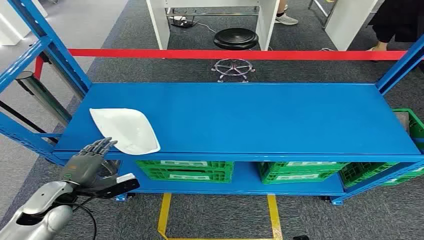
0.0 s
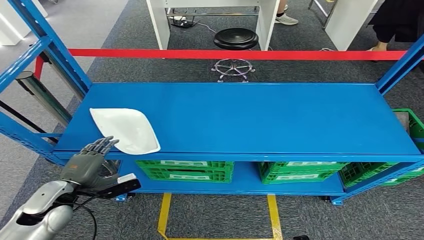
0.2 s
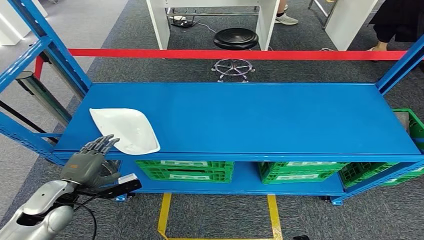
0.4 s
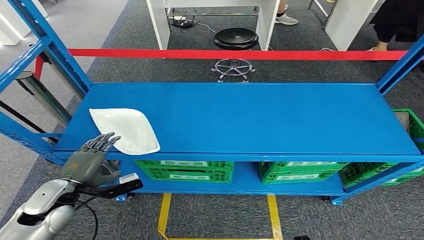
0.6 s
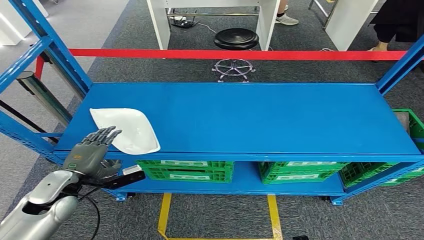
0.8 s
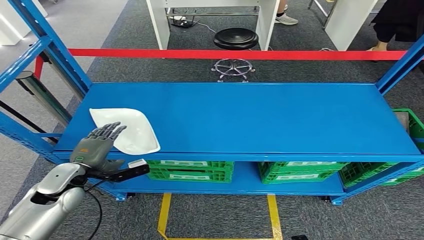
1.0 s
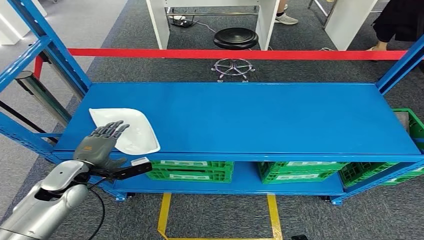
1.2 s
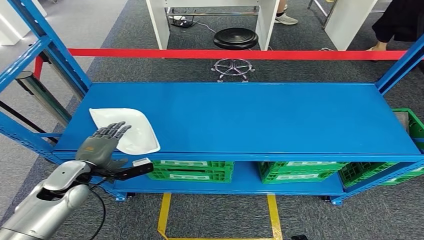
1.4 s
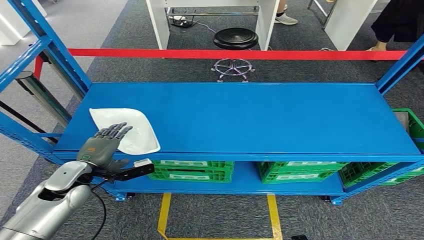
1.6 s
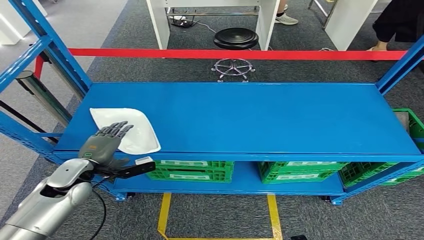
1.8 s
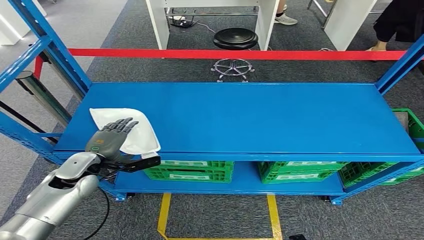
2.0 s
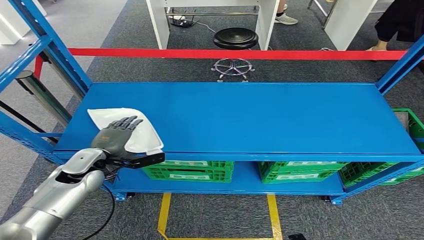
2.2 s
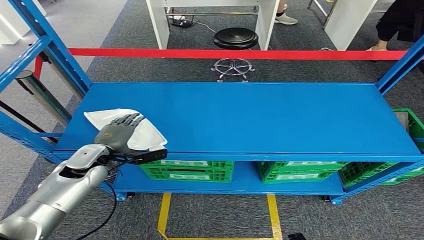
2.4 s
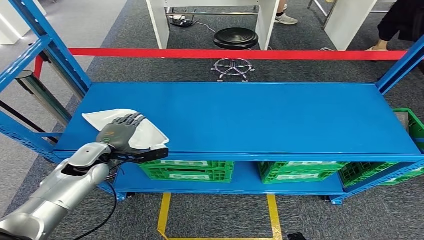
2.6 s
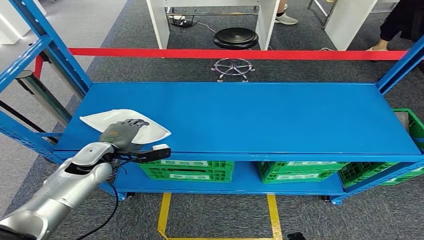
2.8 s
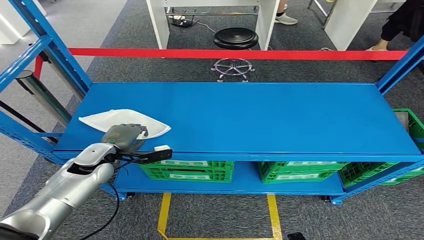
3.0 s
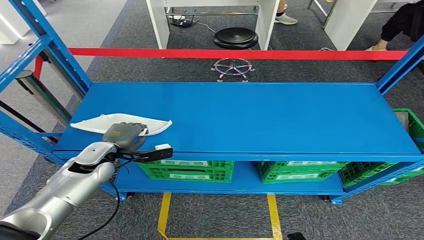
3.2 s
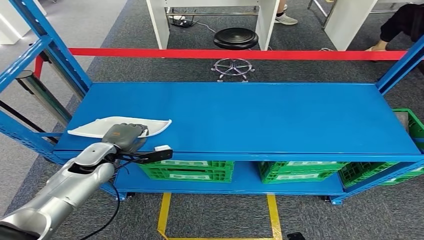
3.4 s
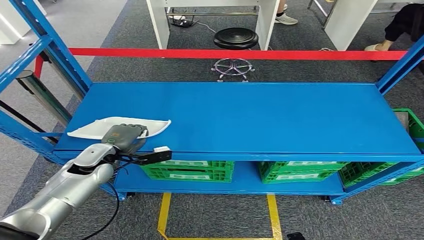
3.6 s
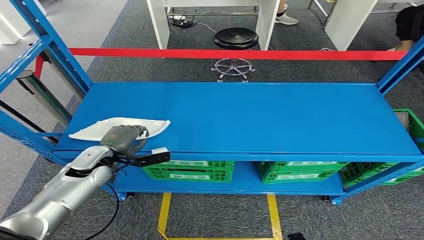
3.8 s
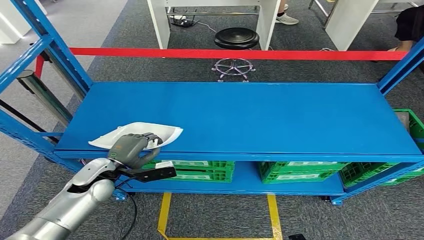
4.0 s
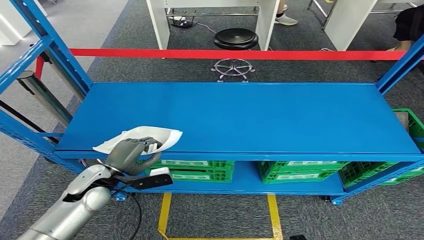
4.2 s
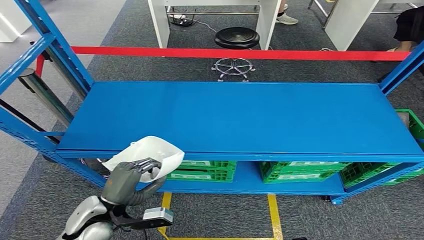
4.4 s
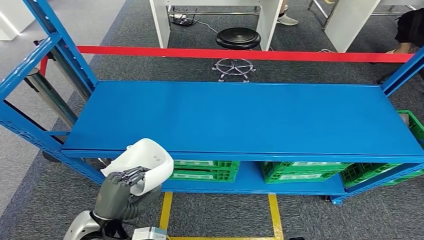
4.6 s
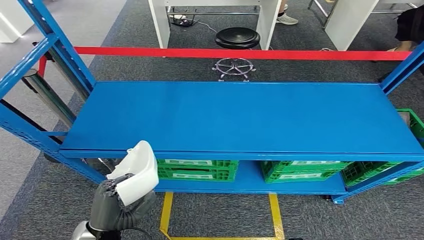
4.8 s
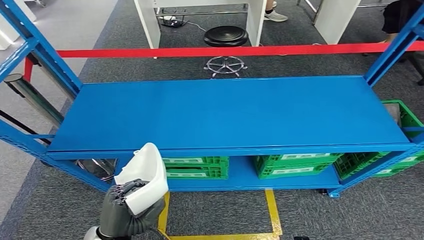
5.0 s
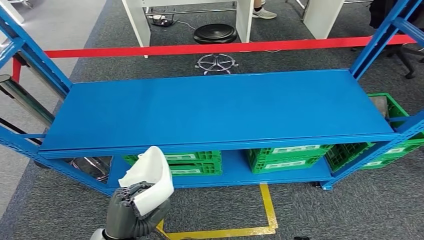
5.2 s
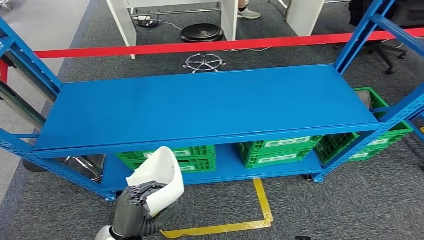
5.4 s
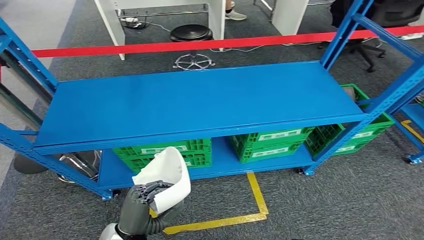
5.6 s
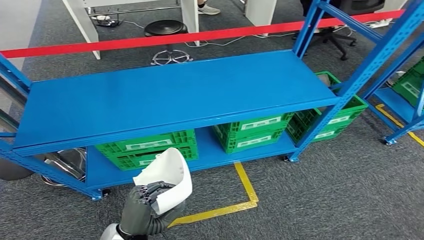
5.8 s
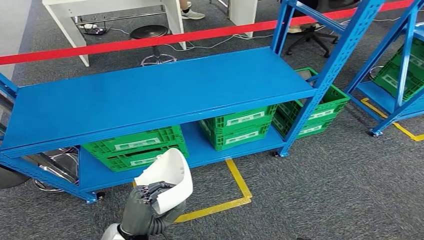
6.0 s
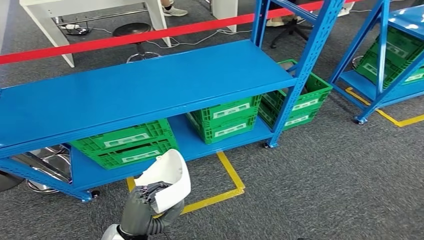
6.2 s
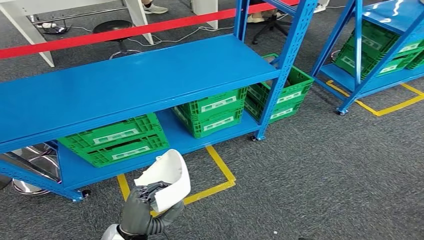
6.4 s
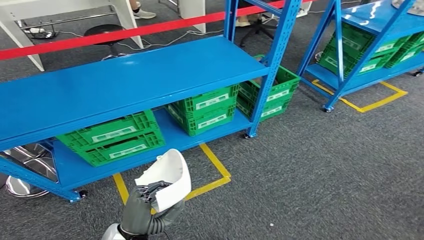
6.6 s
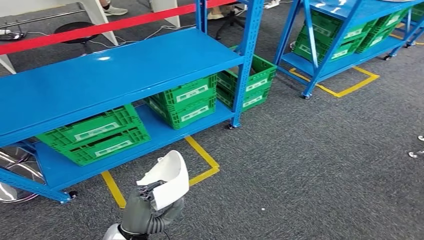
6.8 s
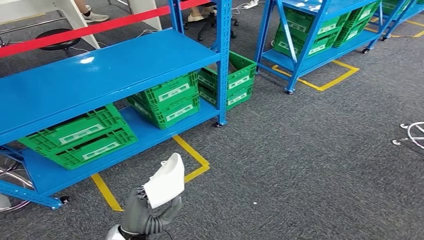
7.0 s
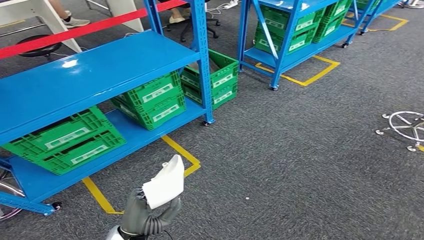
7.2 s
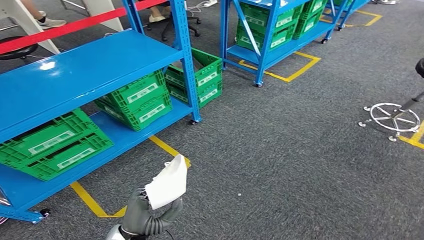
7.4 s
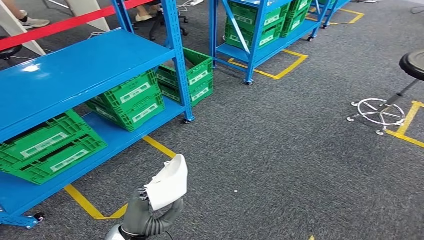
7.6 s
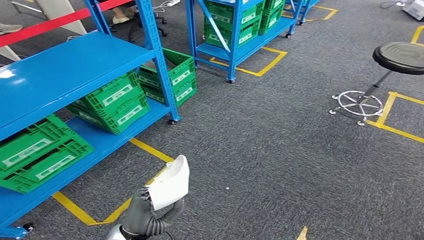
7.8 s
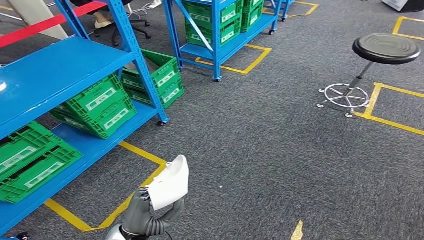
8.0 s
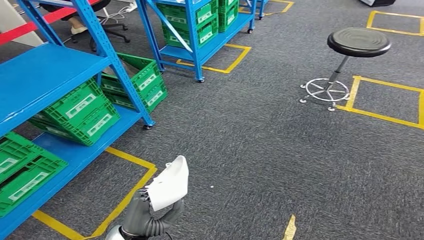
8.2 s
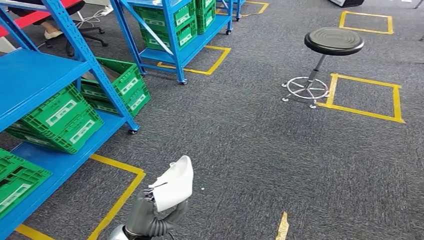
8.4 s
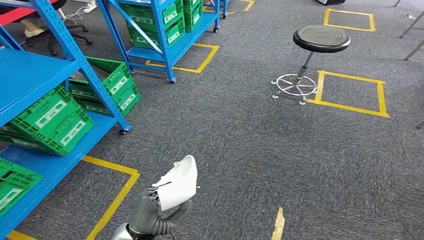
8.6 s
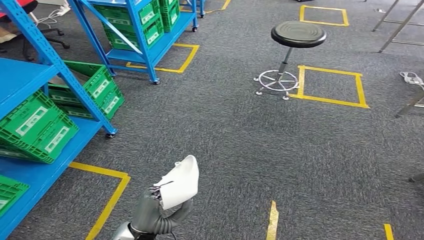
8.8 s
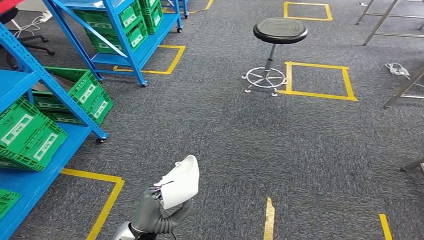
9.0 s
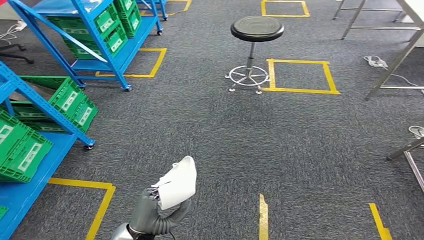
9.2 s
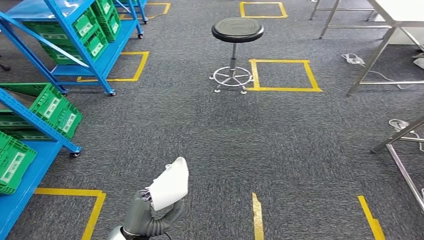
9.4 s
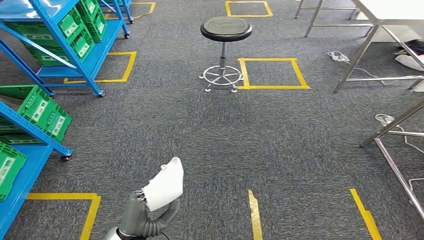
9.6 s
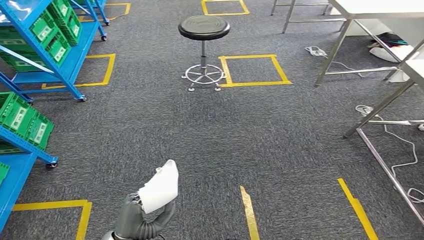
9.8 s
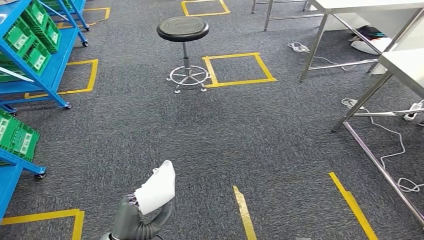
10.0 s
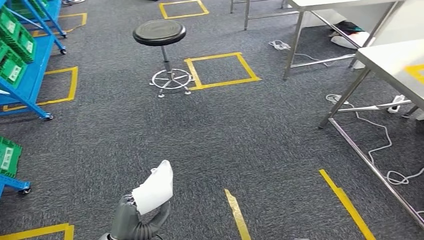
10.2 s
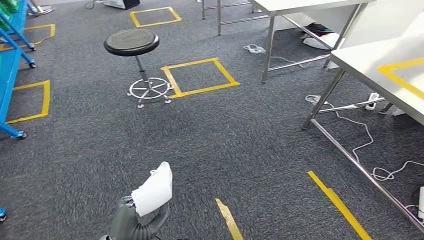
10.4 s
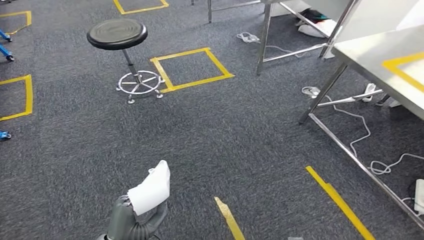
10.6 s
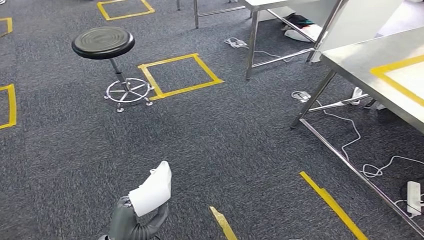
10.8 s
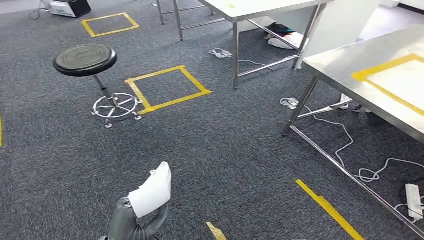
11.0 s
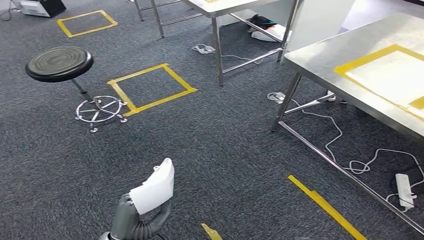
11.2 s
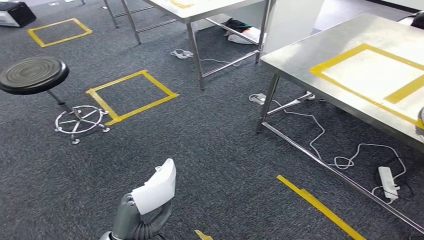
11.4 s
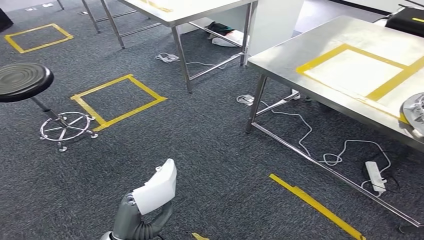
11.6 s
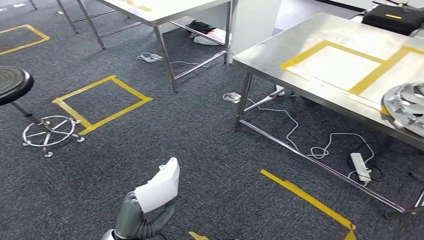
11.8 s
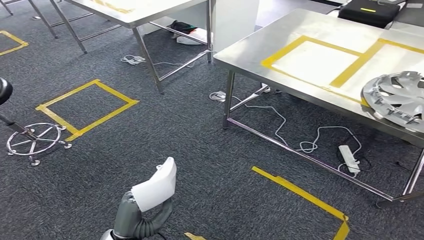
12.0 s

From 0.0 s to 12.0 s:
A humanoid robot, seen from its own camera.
Step, from 0.0 s to 4.8 s: Take small components from the rack.
From 1.6 s to 3.0 s: The left hand shifts approximately 5 cm forward.
From 3.0 s to 4.4 s: The left hand travels backward by some 15 cm.

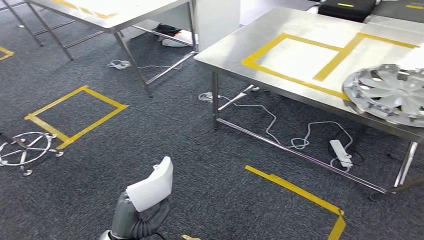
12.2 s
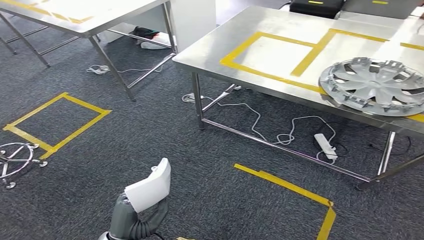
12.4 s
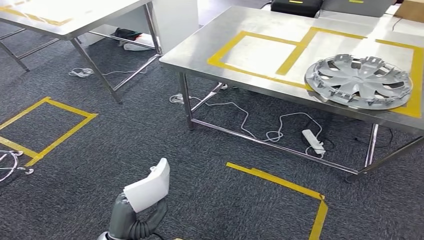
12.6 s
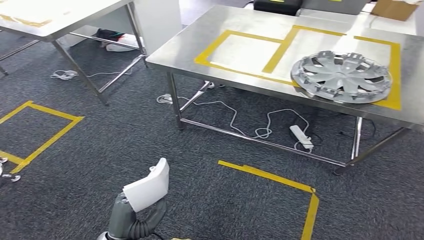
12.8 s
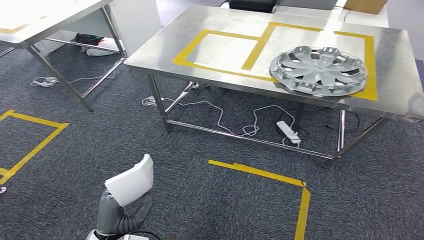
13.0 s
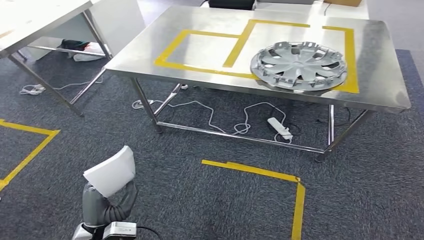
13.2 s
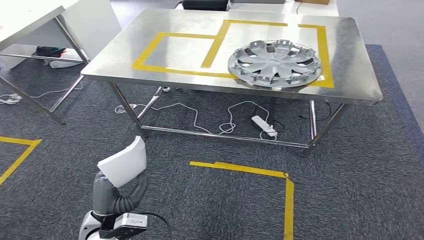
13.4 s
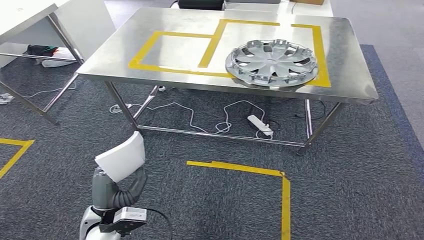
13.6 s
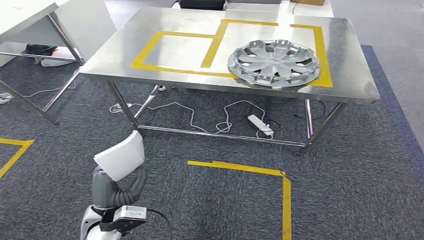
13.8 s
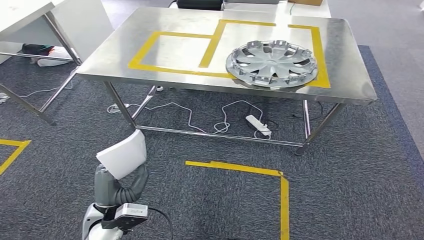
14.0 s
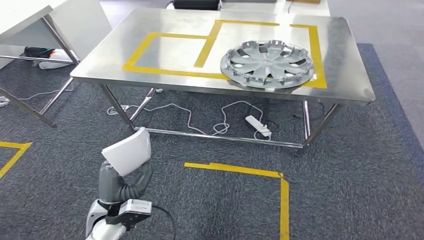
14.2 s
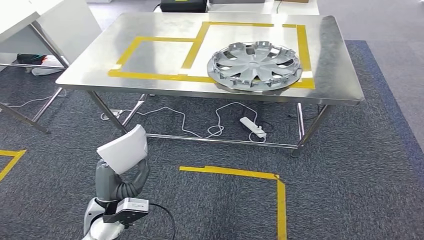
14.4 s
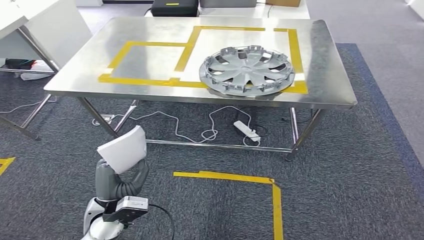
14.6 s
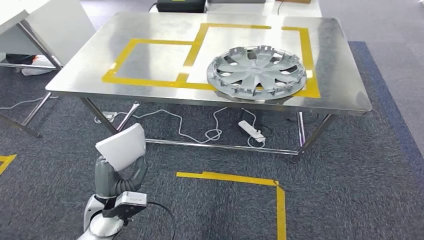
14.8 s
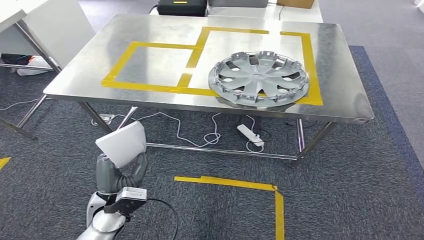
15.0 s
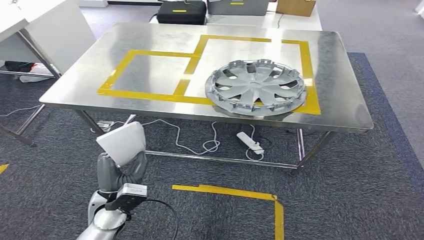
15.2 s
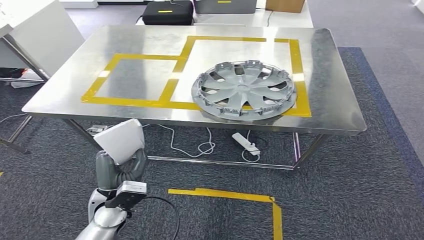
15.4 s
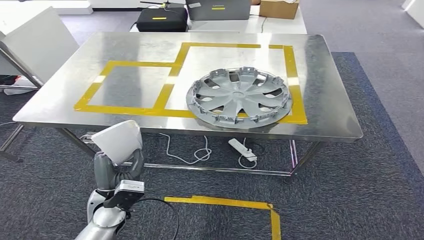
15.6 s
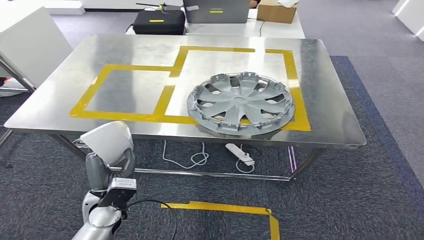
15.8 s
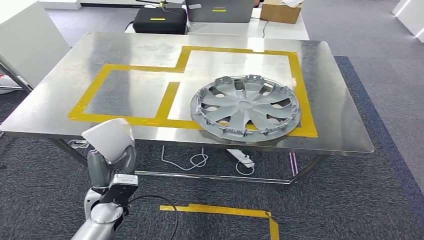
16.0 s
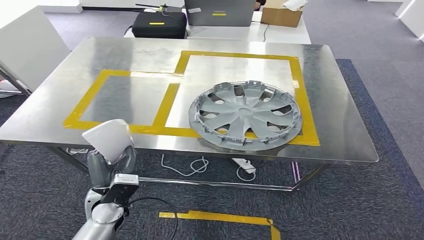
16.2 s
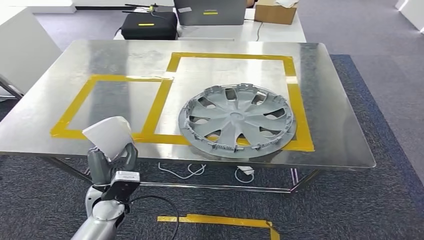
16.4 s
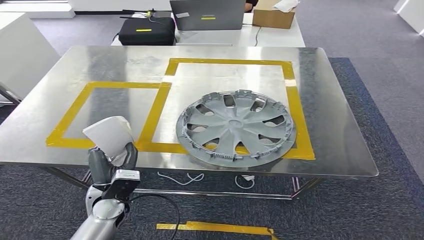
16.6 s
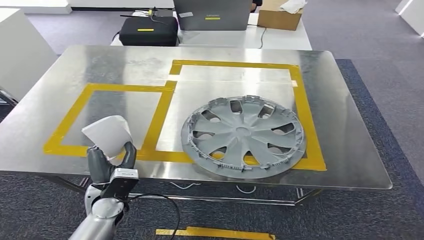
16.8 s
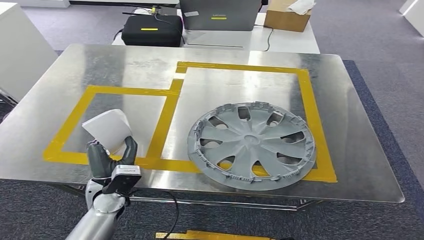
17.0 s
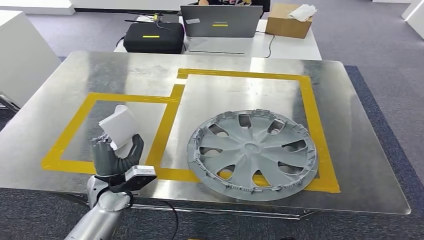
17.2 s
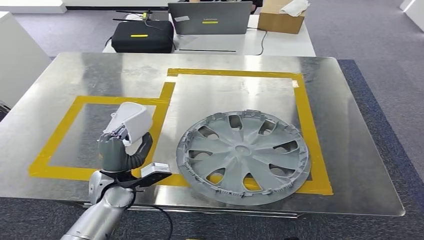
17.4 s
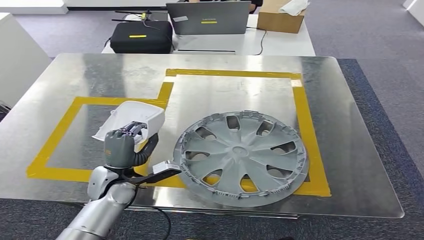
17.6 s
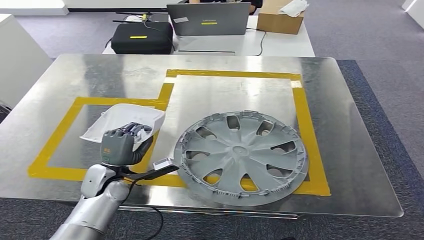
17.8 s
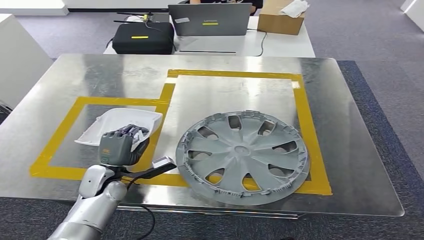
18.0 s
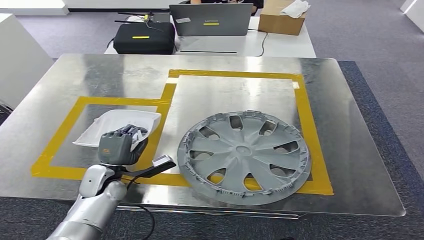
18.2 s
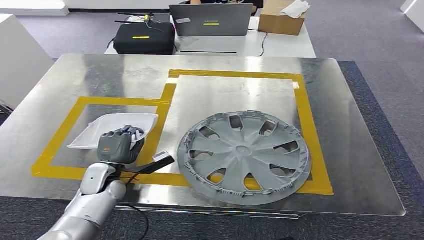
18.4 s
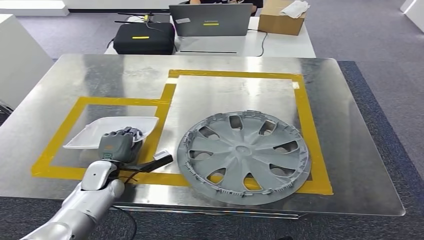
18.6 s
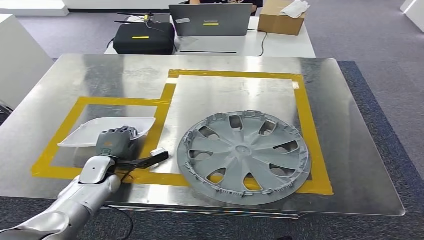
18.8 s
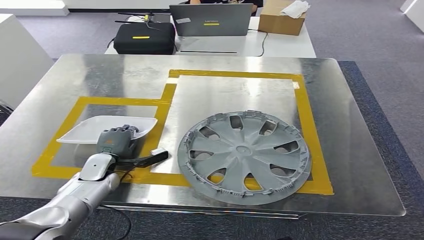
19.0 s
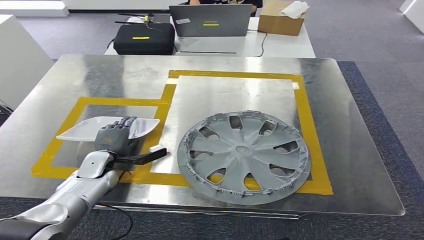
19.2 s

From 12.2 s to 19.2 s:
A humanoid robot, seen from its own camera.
Step, from 12.2 s to 14.2 s: Move the small parts to the workbench.
From 17.8 s to 19.2 s: The left hand goes approximately 5 cm forward.
